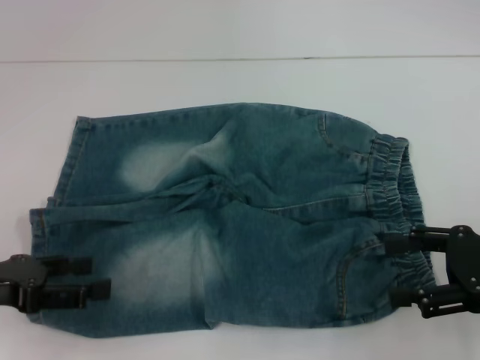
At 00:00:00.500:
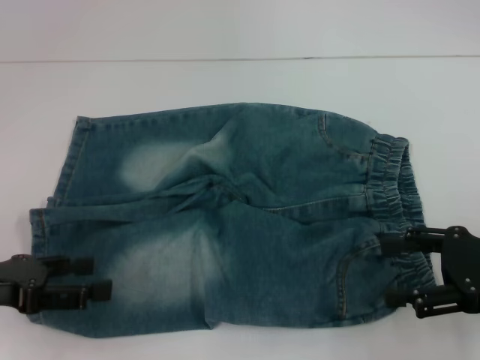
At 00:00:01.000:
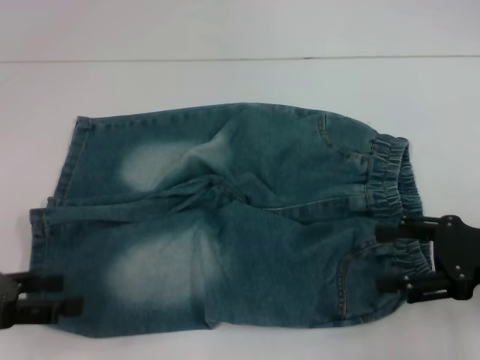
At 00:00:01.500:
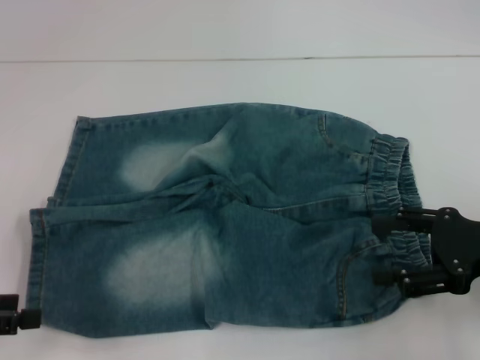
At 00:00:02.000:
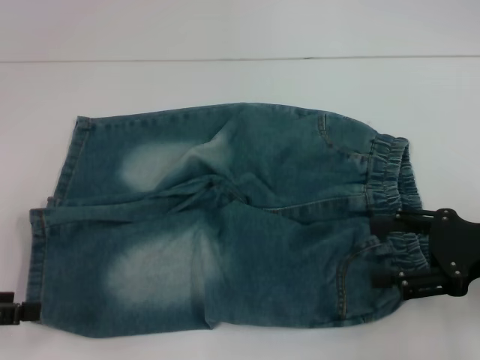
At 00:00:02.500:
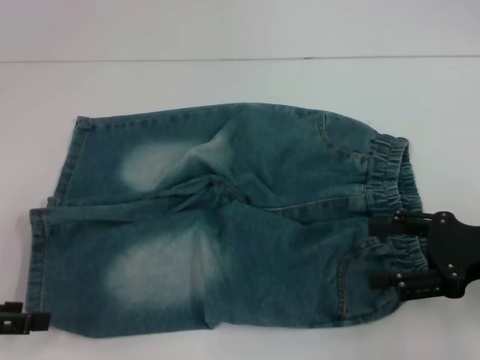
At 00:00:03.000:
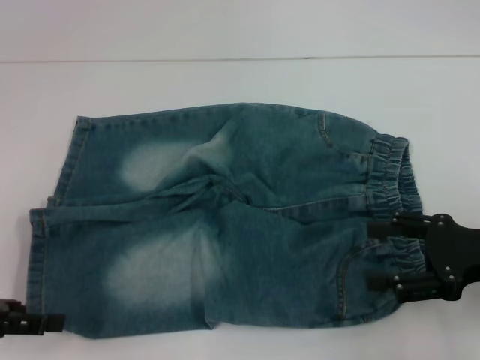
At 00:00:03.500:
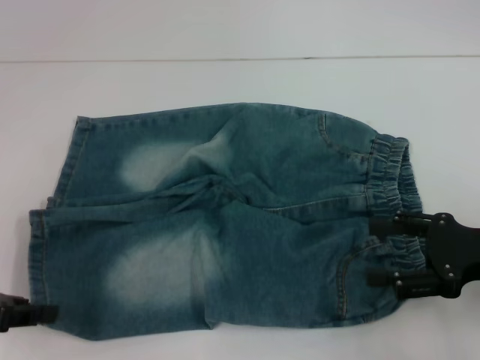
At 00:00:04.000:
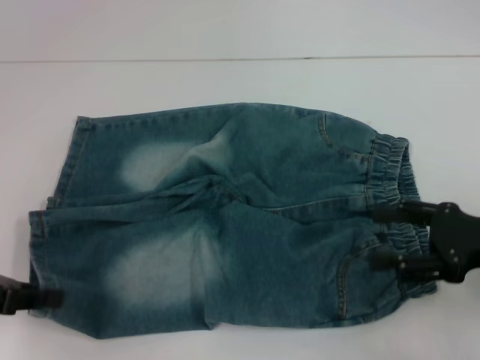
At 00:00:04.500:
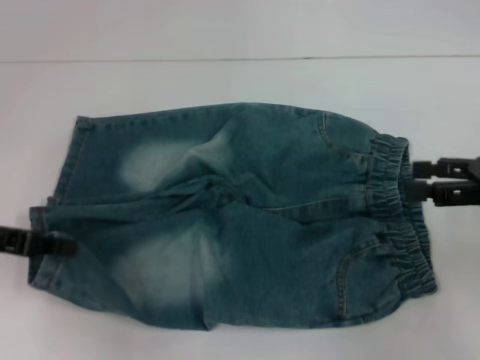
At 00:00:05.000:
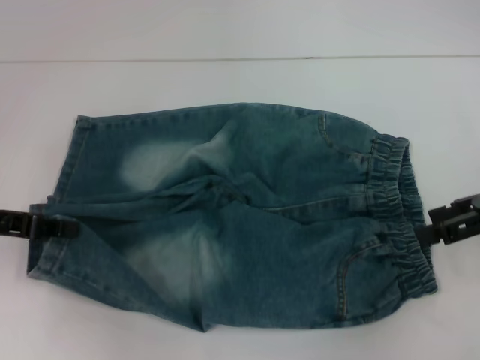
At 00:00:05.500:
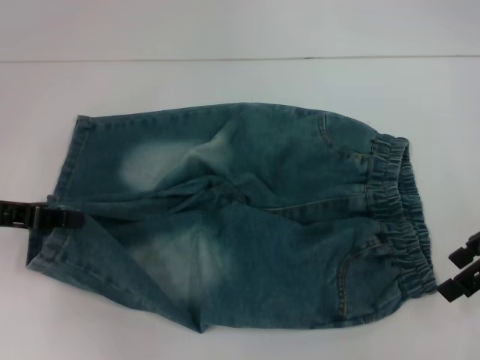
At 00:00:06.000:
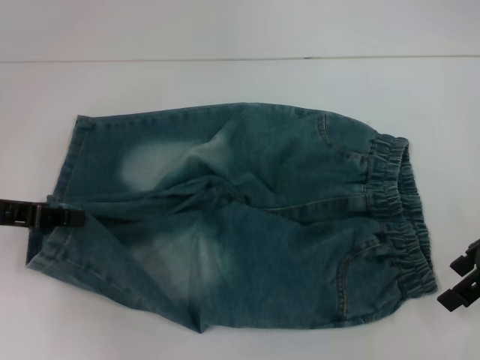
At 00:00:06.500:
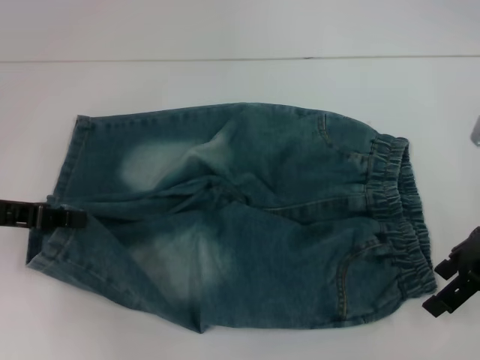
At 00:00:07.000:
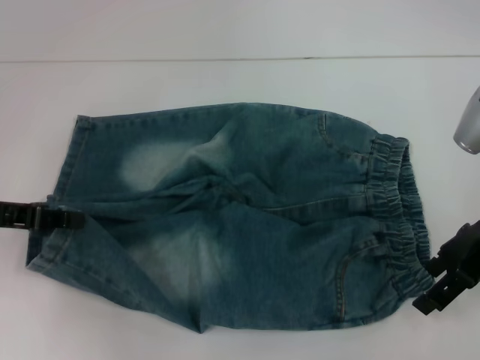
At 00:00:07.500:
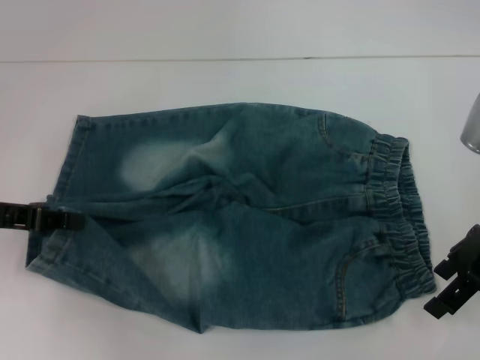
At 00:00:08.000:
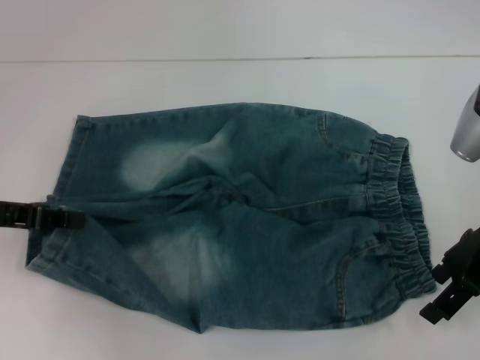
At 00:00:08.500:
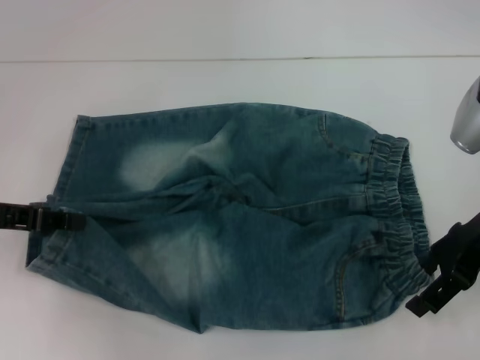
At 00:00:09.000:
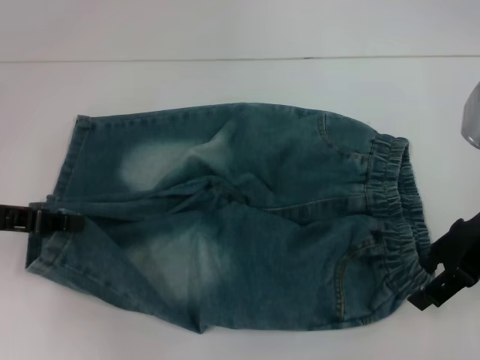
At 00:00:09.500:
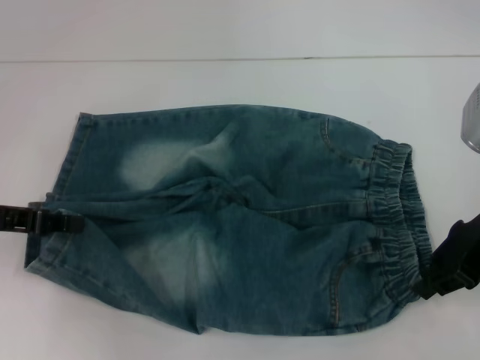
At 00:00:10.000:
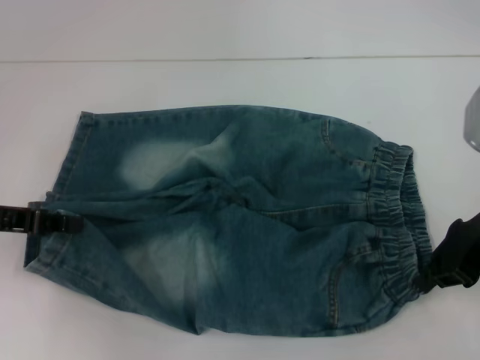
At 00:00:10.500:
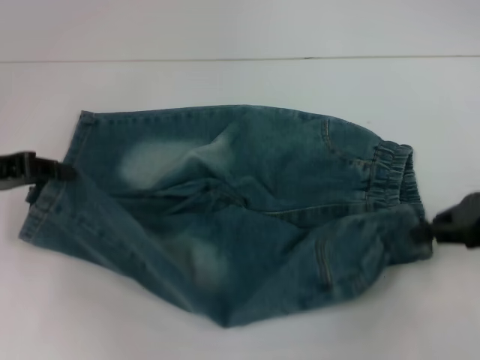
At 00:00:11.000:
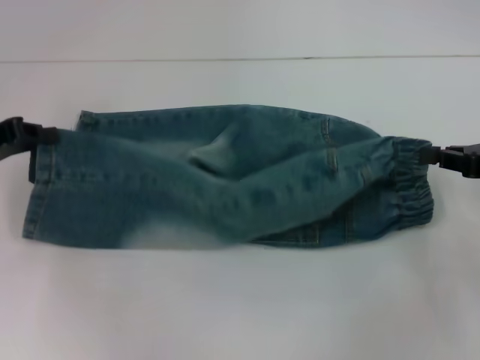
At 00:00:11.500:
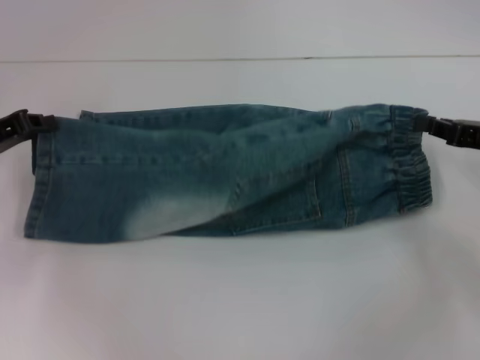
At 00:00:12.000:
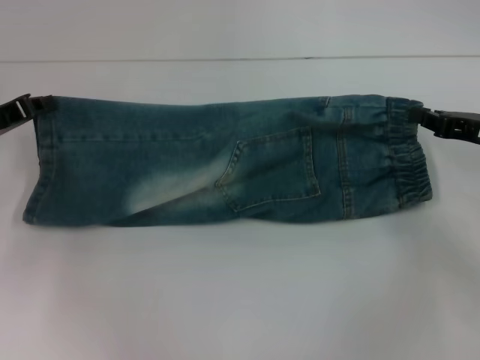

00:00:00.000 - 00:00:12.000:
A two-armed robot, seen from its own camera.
Step, 00:00:00.000 - 00:00:04.000: Grab the lower left pant leg with your left hand.
Step, 00:00:04.500 - 00:00:10.000: Hold the lower right waistband with your right hand.
00:00:00.000 - 00:00:02.000: The left gripper goes about 5 cm to the left.
00:00:02.000 - 00:00:04.000: The left gripper closes its fingers.
00:00:04.000 - 00:00:06.000: The right gripper is displaced forward and upward by approximately 10 cm, while the left gripper shifts about 5 cm forward.
00:00:06.000 - 00:00:08.000: The grippers make only small movements.
00:00:08.000 - 00:00:10.000: The right gripper closes.
00:00:10.000 - 00:00:12.000: The left gripper shifts about 5 cm forward, while the right gripper moves to the right and downward, some 10 cm.

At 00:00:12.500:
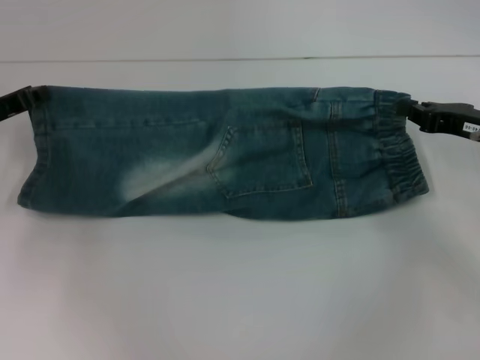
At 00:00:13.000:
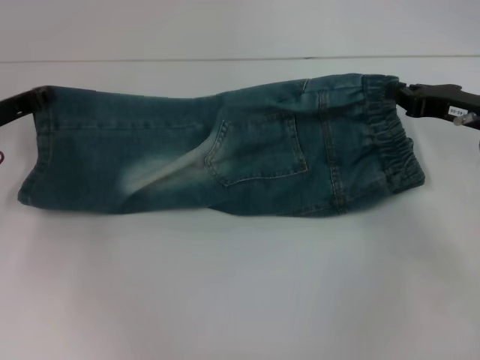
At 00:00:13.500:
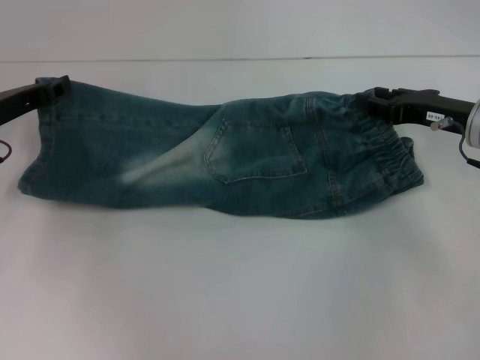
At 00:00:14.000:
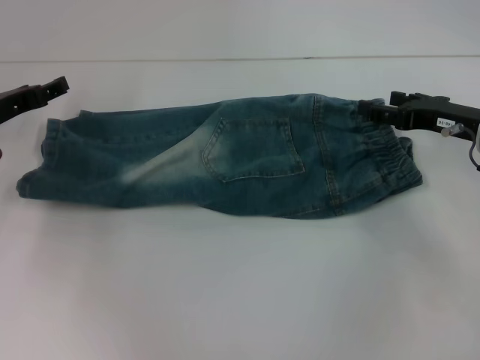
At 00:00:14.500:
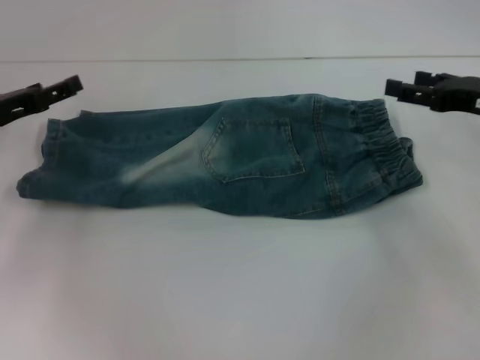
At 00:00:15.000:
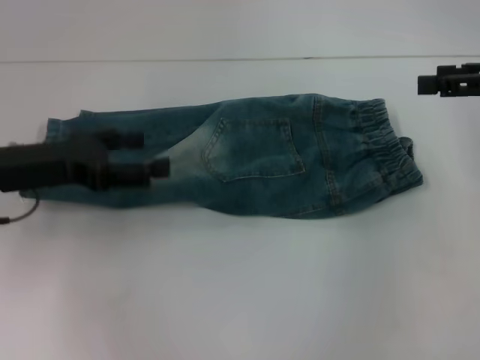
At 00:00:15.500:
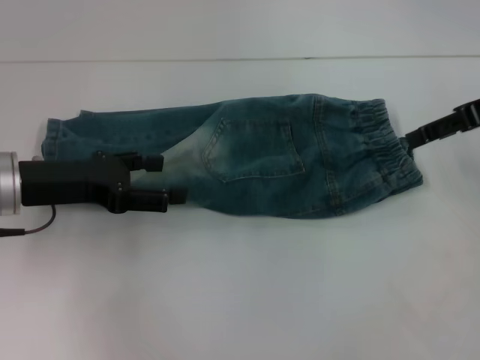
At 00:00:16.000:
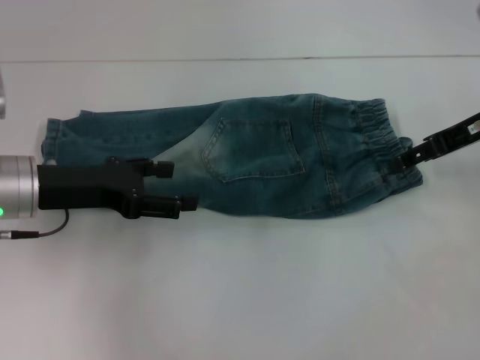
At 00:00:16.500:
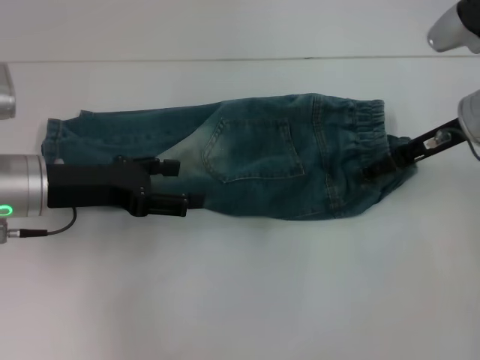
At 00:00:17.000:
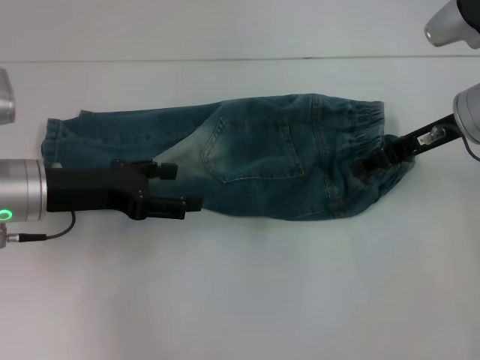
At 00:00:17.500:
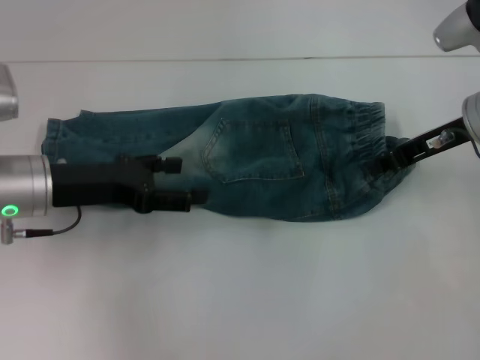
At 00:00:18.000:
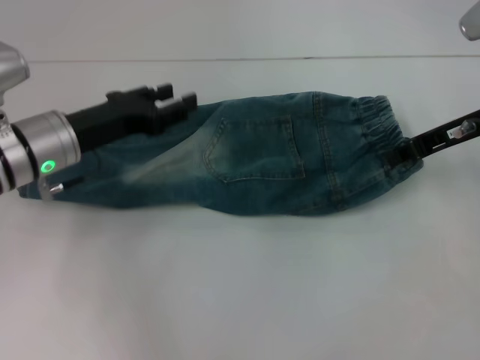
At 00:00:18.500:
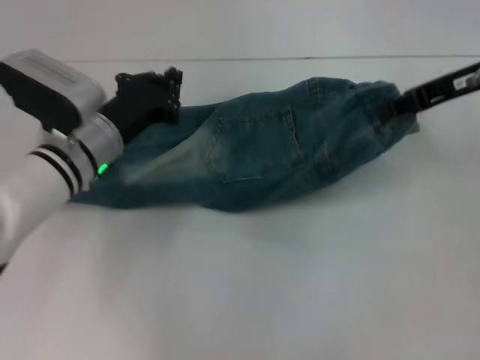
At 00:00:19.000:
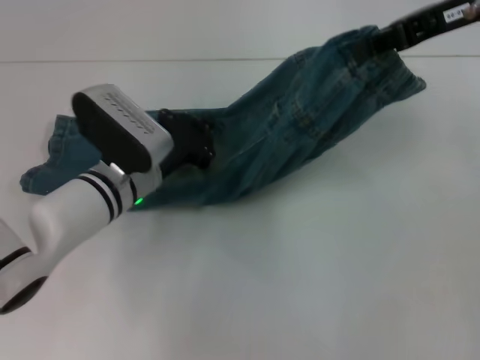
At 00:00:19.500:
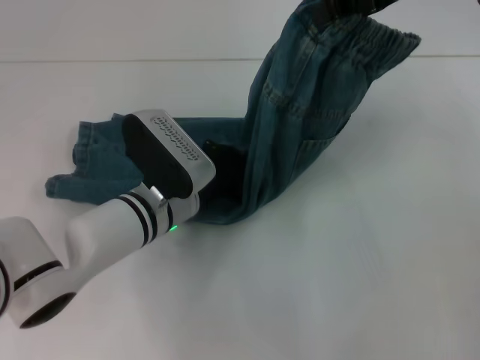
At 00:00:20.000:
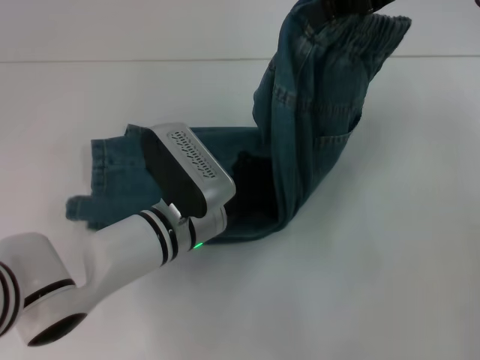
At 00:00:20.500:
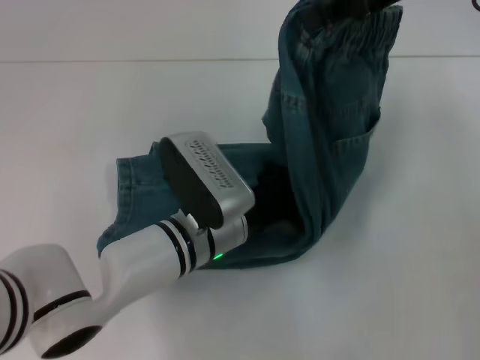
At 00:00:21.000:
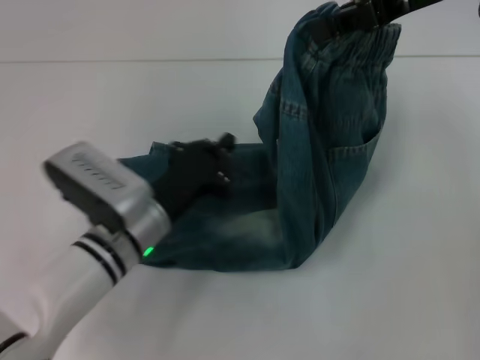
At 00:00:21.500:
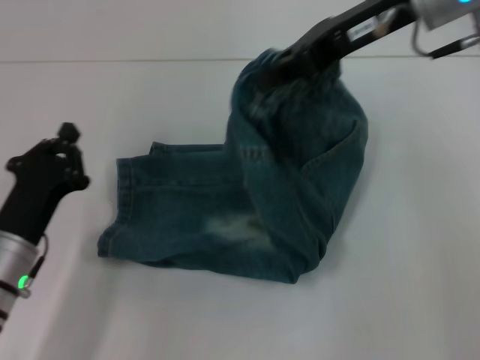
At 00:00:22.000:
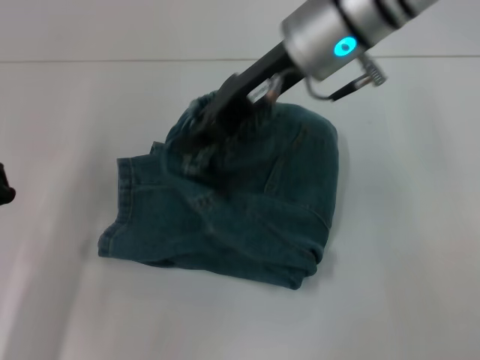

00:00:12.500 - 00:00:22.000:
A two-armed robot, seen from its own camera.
Step, 00:00:14.500 - 00:00:17.500: Grab the waistband with your right hand.
Step, 00:00:18.000 - 00:00:20.500: Press the middle of the pants with your left hand.
00:00:12.500 - 00:00:14.500: The left gripper opens up. The right gripper opens its fingers.
00:00:14.500 - 00:00:16.500: The right gripper is displaced to the left by some 5 cm, while the left gripper is displaced to the right by roughly 10 cm.
00:00:16.500 - 00:00:18.000: The right gripper closes up.
00:00:18.000 - 00:00:20.000: The left gripper shifts roughly 15 cm to the right and downward, and closes; the right gripper shifts about 15 cm upward and to the left.
00:00:20.000 - 00:00:22.000: The right gripper shifts some 15 cm to the left and downward, while the left gripper is displaced to the left and backward by roughly 25 cm.

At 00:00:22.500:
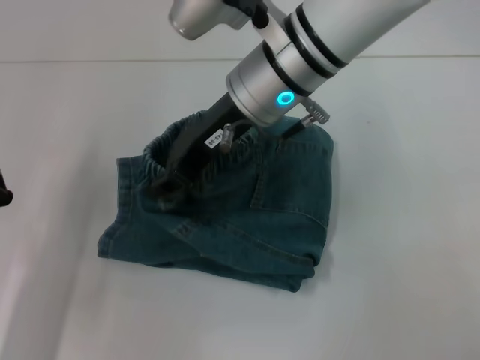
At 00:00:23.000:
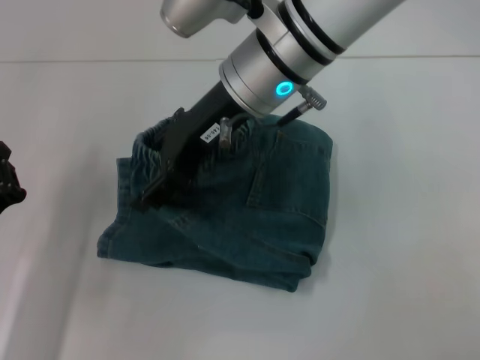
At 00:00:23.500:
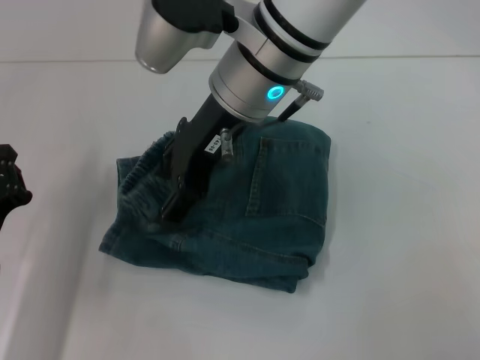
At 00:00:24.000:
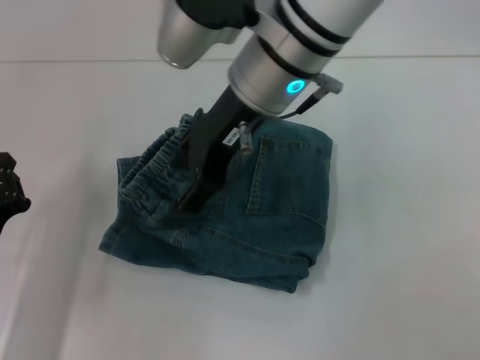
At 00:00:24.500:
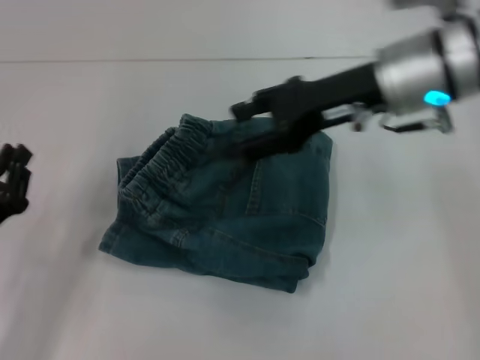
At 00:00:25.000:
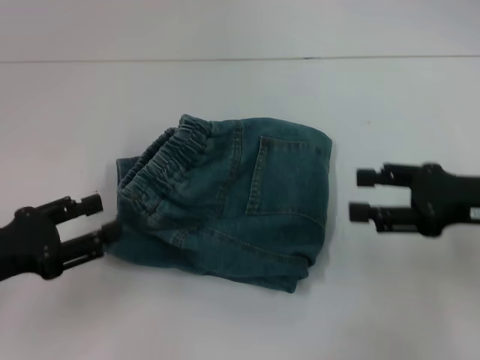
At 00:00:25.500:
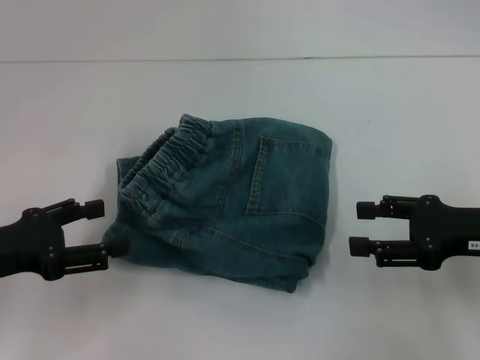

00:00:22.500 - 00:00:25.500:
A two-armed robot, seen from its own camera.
00:00:22.500 - 00:00:24.000: The right gripper opens its fingers.
00:00:24.000 - 00:00:25.500: The right gripper goes roughly 30 cm to the right and downward. The left gripper shifts about 10 cm upward, and opens its fingers.
